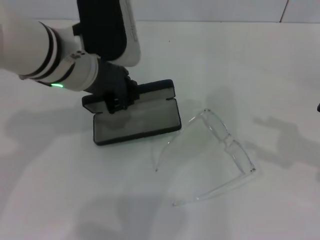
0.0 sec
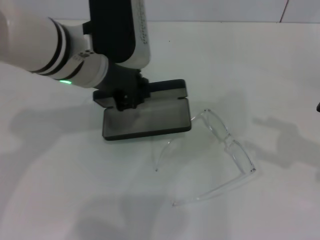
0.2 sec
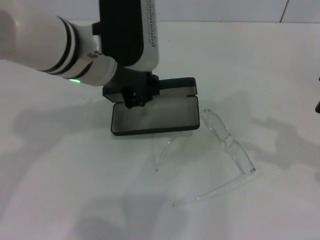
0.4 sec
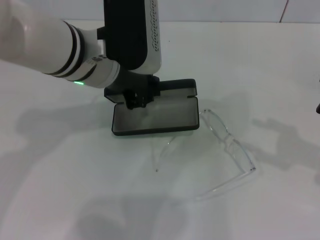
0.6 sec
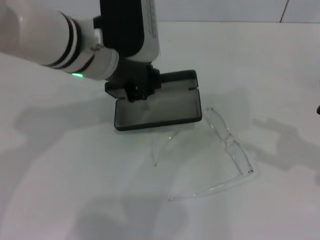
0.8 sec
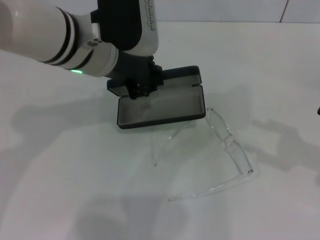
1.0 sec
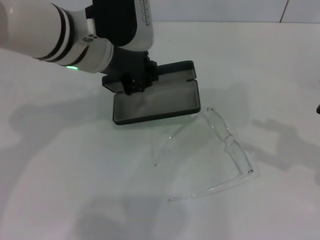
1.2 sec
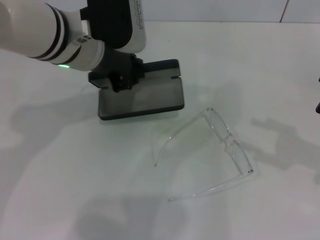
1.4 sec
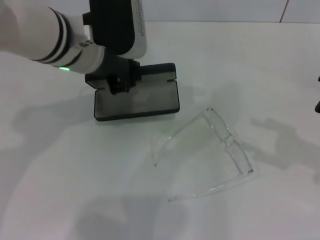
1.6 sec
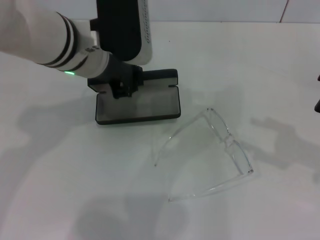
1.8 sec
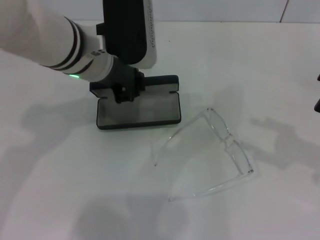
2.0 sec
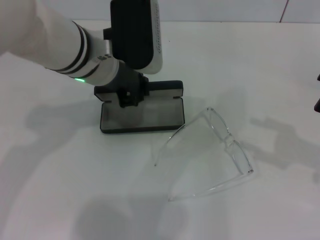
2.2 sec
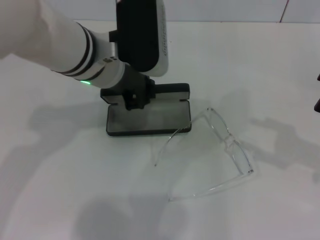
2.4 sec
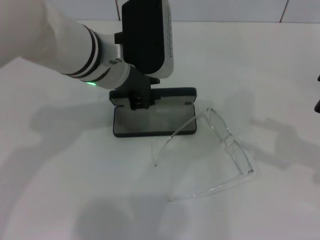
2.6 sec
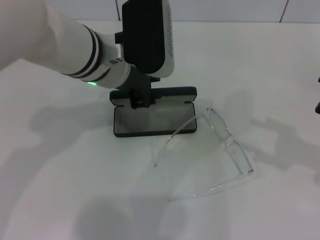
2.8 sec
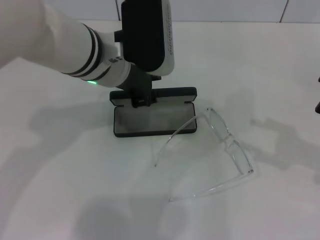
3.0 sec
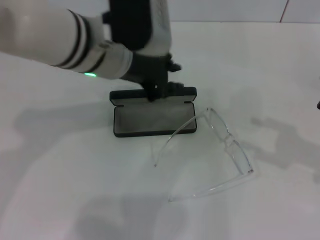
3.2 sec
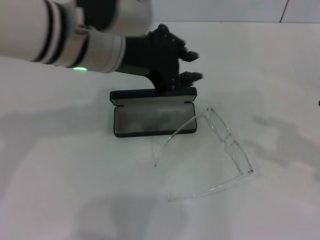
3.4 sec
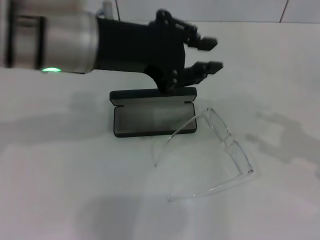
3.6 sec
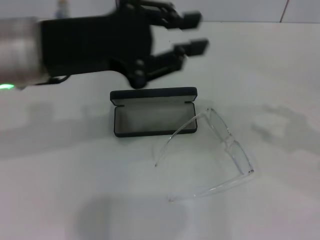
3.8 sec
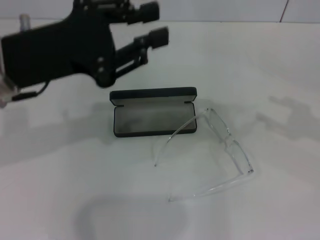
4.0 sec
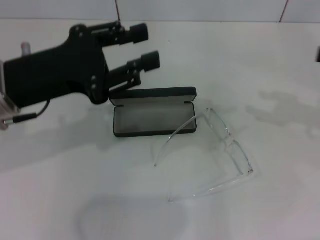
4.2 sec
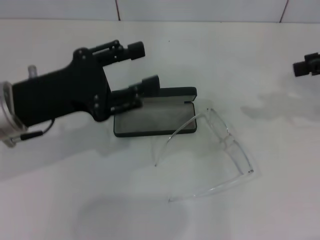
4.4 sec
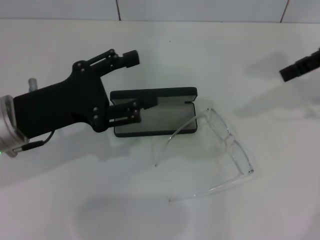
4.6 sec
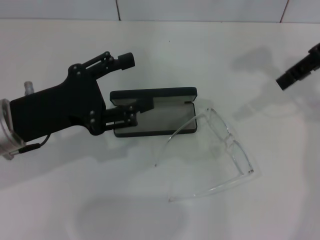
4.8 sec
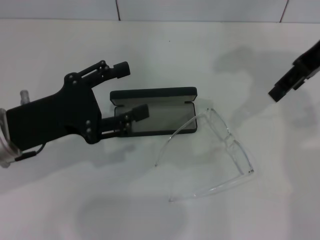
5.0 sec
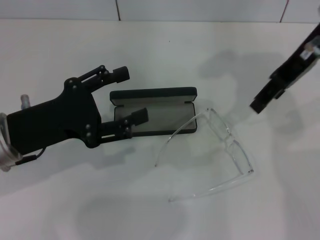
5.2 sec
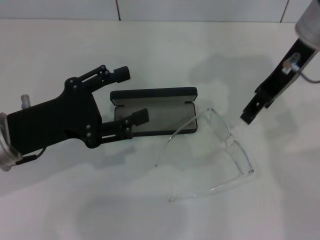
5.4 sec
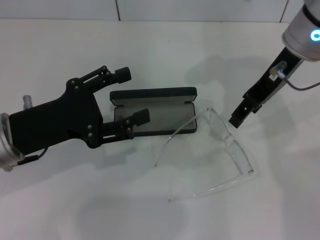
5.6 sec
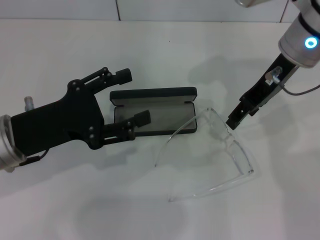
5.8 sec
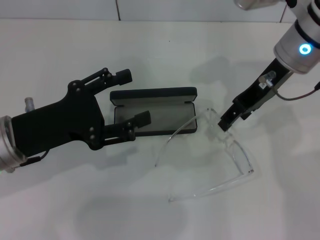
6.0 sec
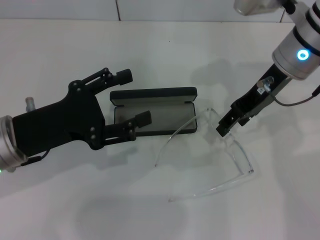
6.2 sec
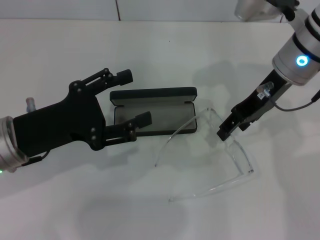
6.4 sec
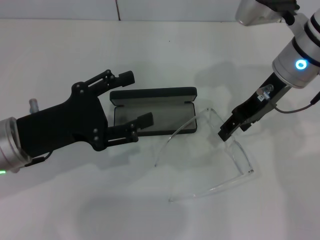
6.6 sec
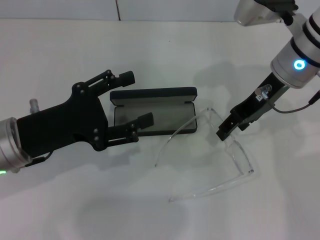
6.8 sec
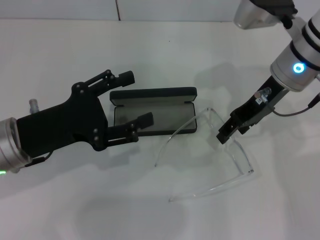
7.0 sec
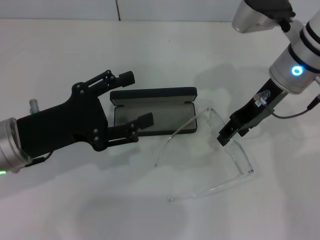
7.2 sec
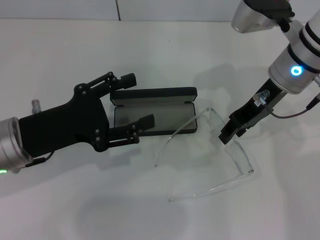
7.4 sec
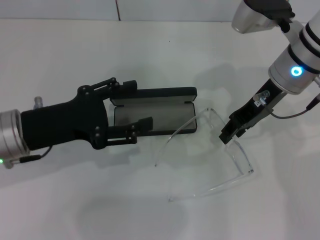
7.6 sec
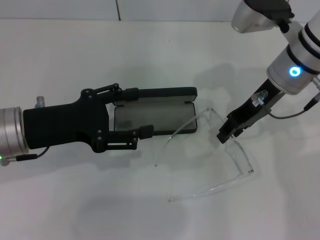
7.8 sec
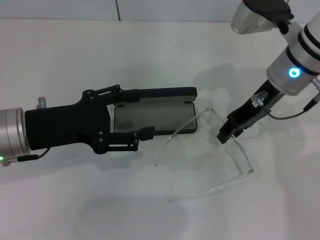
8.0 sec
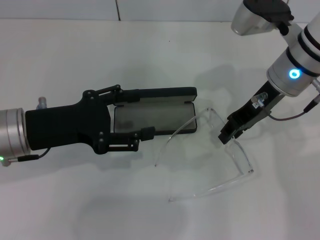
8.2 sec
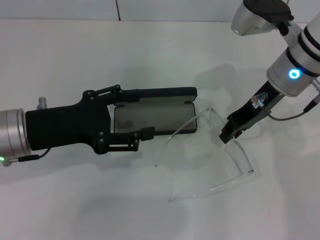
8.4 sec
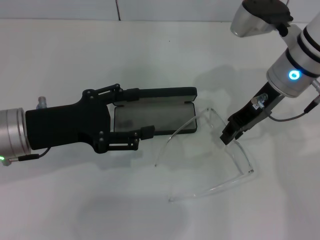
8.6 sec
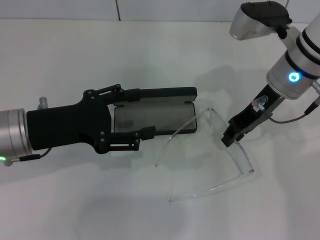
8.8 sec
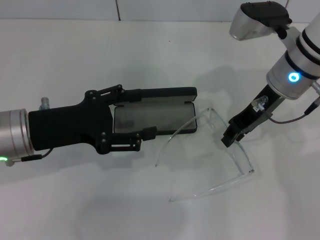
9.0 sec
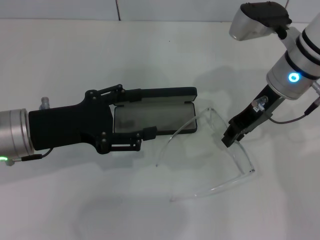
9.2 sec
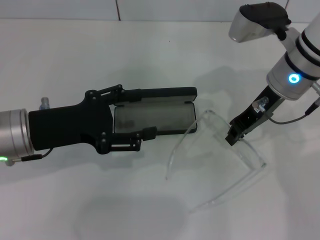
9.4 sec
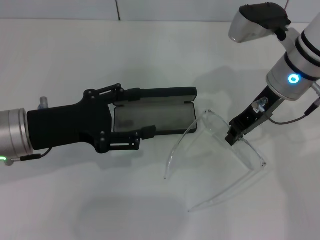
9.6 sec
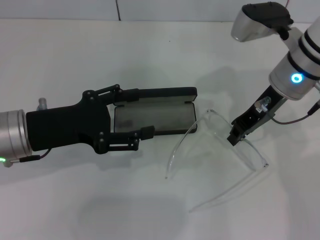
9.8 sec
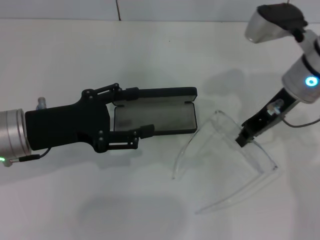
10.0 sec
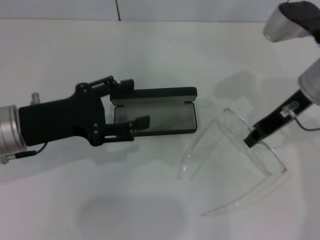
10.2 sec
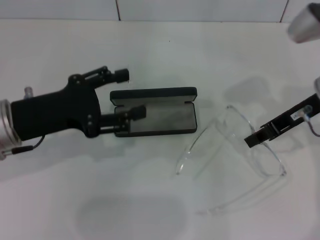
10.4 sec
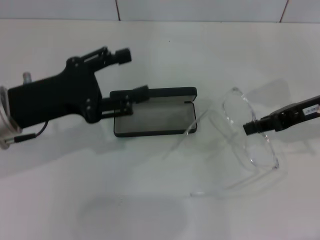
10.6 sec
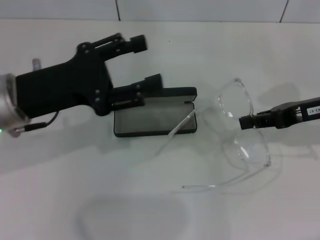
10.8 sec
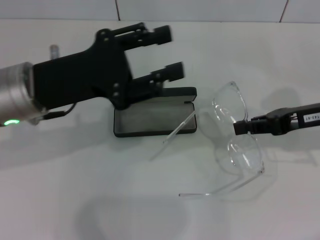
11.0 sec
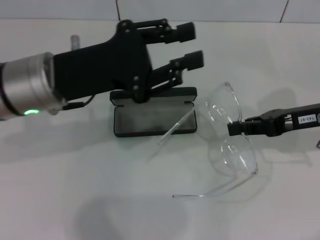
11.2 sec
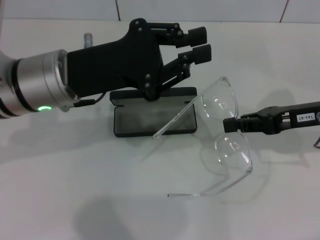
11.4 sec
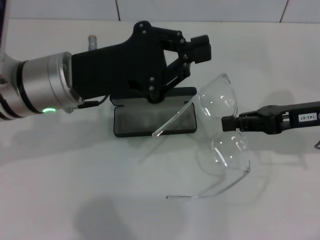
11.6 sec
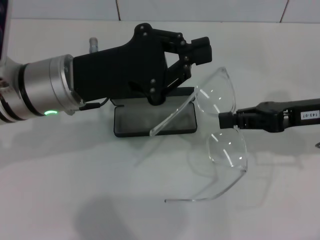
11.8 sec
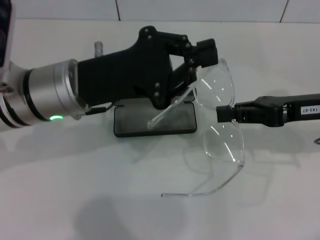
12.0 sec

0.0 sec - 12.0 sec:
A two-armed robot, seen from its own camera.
Step, 0.0 sec - 2.8 sec: Place the glasses case in the center of the table with your left hand.
Step, 3.0 sec - 9.6 sec: Grab the eyeglass frame with your right hand.
0.0 sec - 3.0 sec: The grippers move only a little.
3.0 sec - 4.4 sec: The left gripper shifts about 15 cm to the left and backward; the right gripper moves upward and forward, some 15 cm.
4.4 sec - 6.0 sec: The right gripper is displaced to the left by some 15 cm. Meanwhile the left gripper opens its fingers.
6.0 sec - 7.6 sec: The grippers move only a little.
7.6 sec - 9.0 sec: The right gripper closes.
9.0 sec - 10.4 sec: The right gripper heads to the right, covering some 5 cm.
10.4 sec - 12.0 sec: The left gripper shifts roughly 10 cm to the right, and closes its fingers.

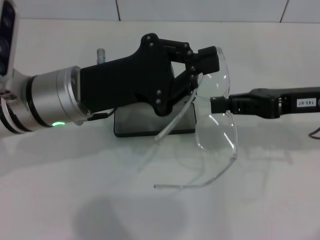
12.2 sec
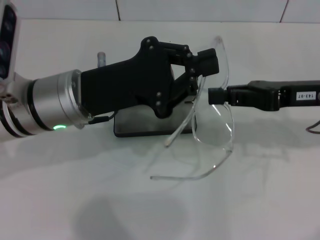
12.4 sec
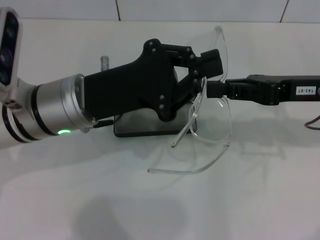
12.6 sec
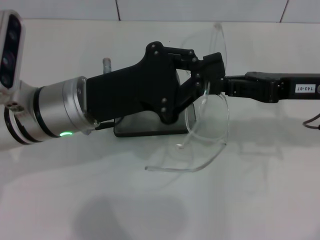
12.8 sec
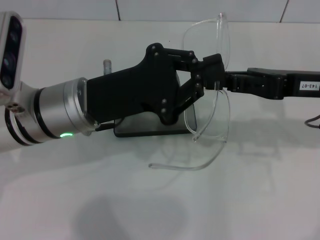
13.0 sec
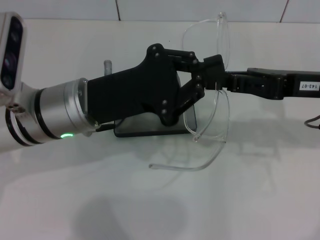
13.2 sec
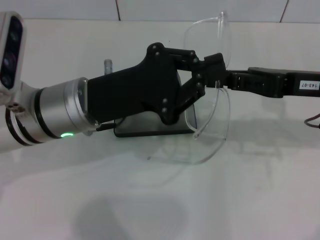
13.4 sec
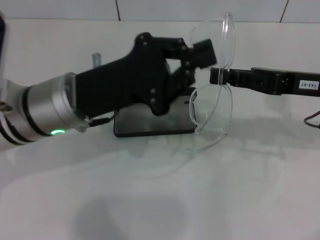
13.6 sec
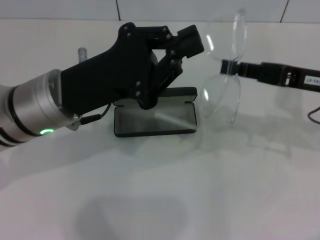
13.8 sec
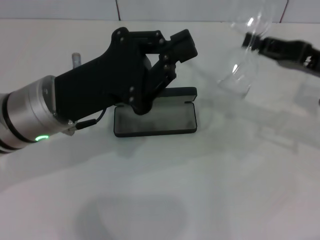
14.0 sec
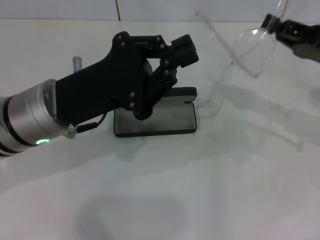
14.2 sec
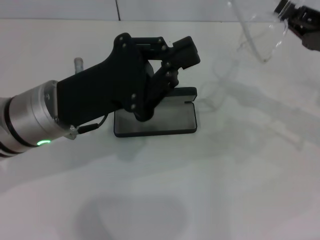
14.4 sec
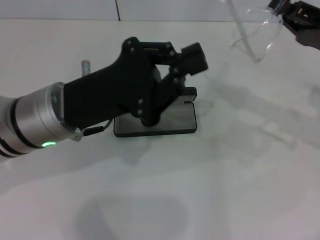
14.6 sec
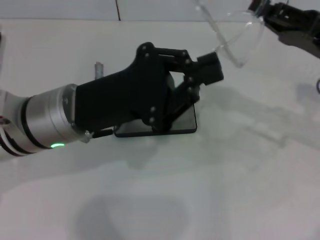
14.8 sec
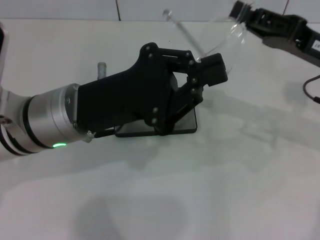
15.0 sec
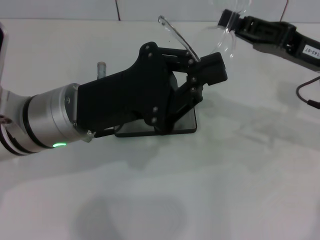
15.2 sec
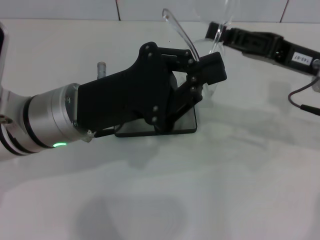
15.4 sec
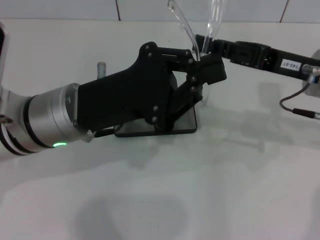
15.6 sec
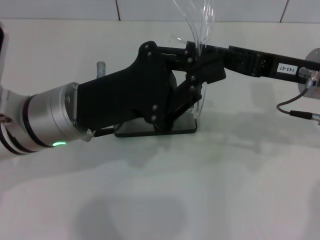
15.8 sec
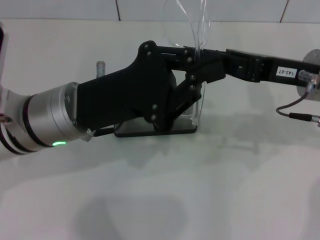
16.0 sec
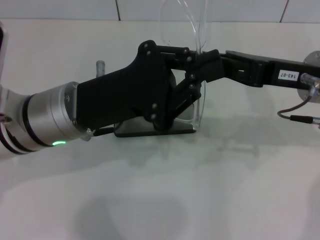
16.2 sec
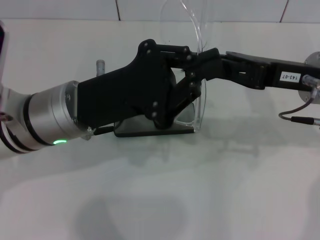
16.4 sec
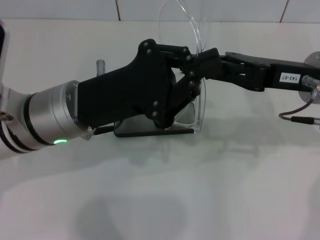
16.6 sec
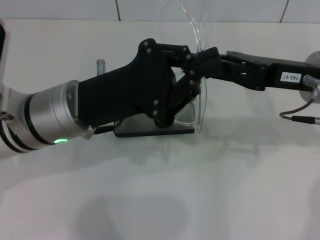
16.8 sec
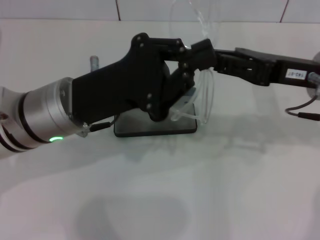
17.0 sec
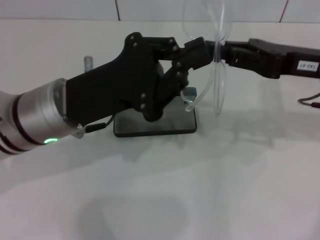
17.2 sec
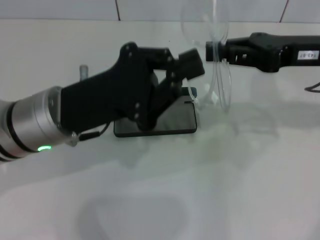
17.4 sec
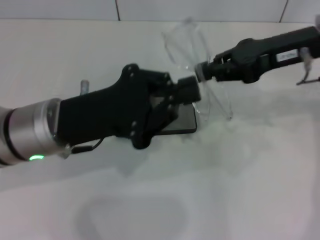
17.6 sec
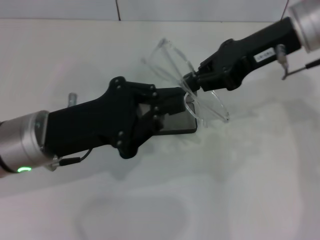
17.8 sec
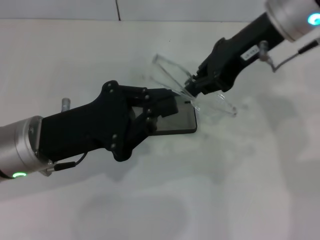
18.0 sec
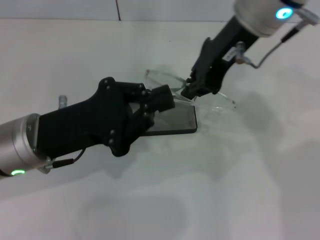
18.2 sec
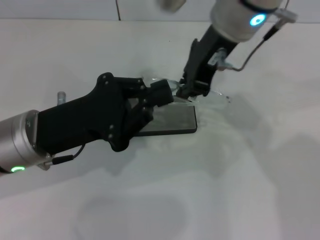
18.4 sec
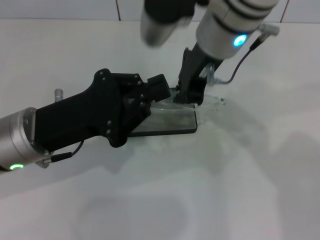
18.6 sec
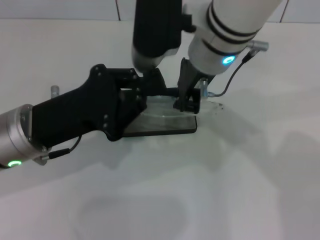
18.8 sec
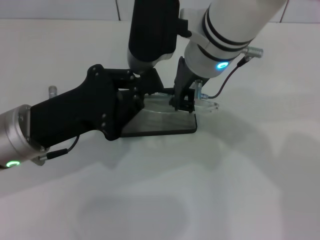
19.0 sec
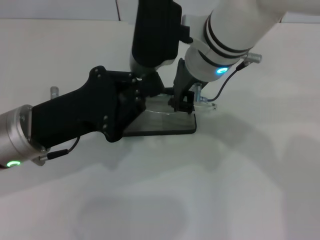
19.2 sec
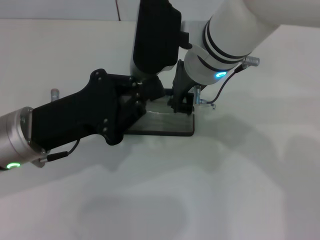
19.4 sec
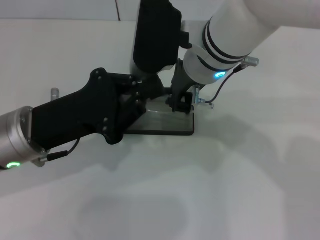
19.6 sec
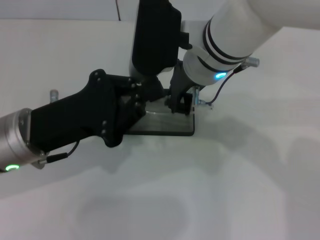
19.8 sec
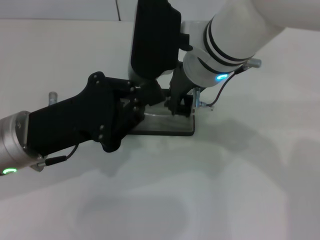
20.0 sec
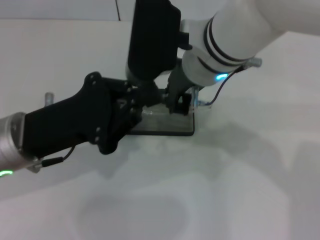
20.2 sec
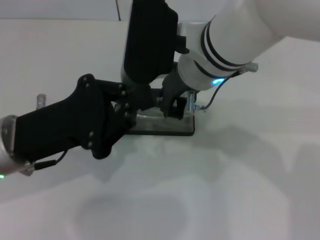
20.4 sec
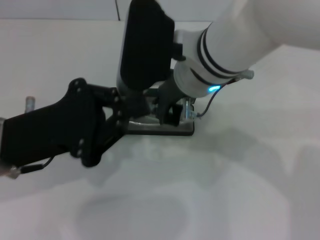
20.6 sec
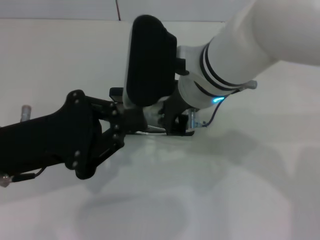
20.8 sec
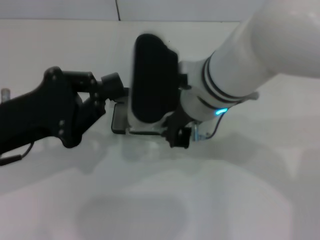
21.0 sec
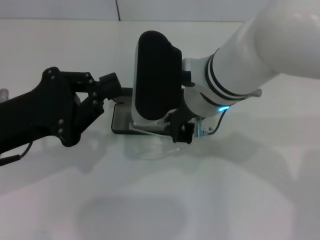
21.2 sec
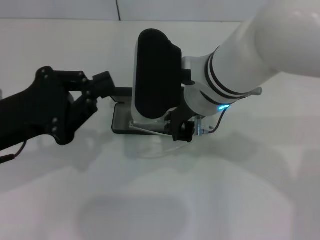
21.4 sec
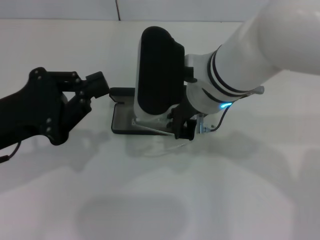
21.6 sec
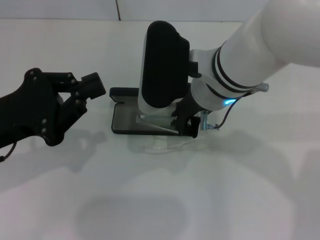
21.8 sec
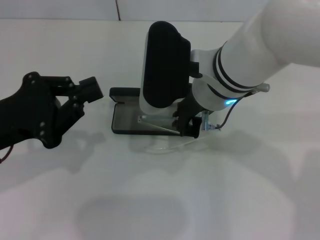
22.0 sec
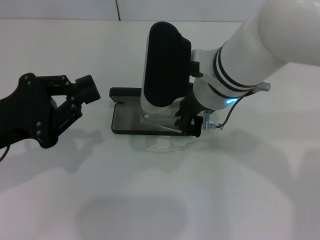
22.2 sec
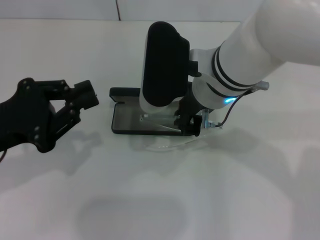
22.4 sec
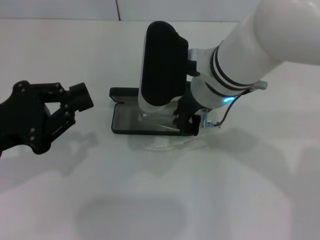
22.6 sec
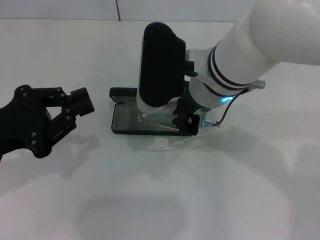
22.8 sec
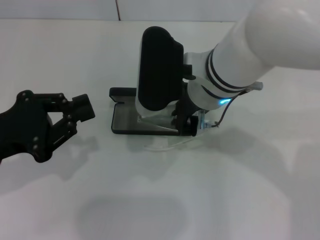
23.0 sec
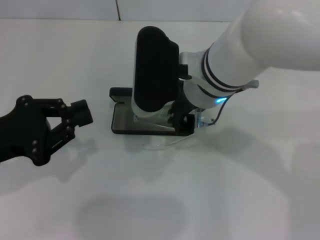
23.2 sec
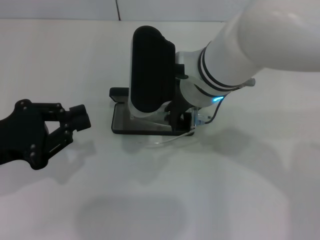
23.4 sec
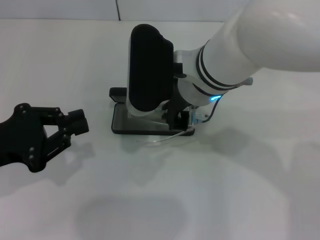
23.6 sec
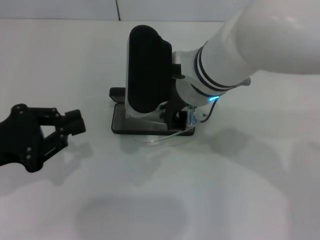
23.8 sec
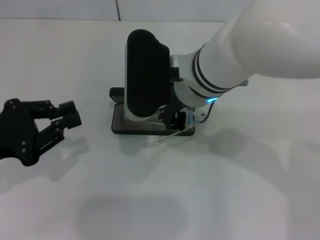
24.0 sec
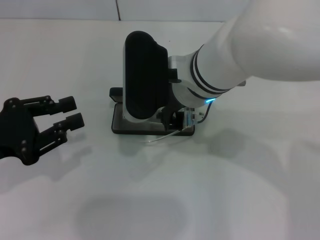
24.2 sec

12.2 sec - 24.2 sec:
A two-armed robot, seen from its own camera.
Step, 12.2 sec - 16.8 sec: Fold the frame with your left hand.
15.2 sec - 16.6 sec: There are only small adjustments of the grippers.
16.6 sec - 18.2 sec: The right gripper moves upward, to the left and forward, some 15 cm. The left gripper ends up roughly 5 cm from where it was.
18.2 sec - 19.8 sec: The right gripper is displaced downward and to the left by about 10 cm.
19.8 sec - 21.2 sec: The left gripper shifts by approximately 5 cm.
21.2 sec - 24.2 sec: There are only small adjustments of the grippers.
